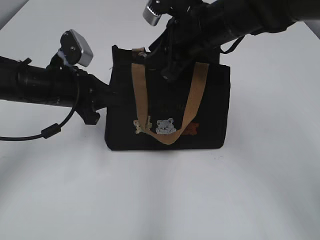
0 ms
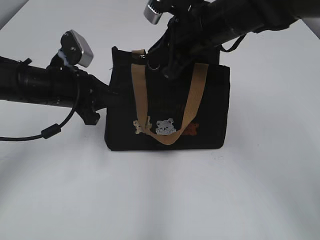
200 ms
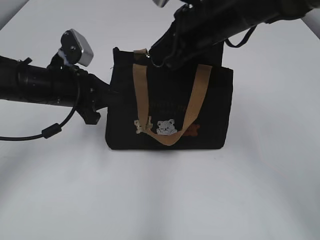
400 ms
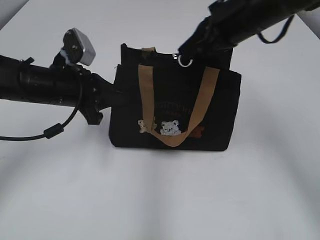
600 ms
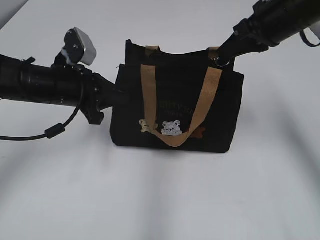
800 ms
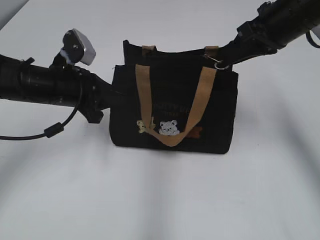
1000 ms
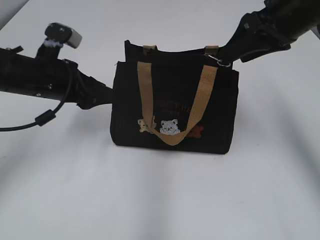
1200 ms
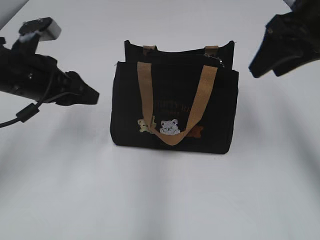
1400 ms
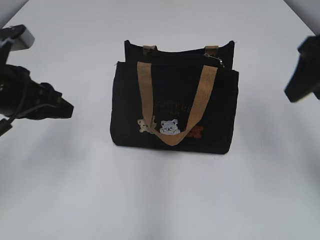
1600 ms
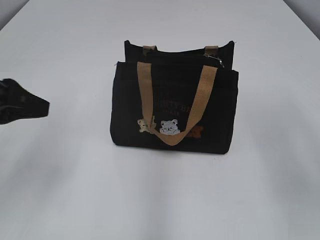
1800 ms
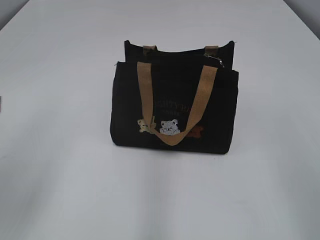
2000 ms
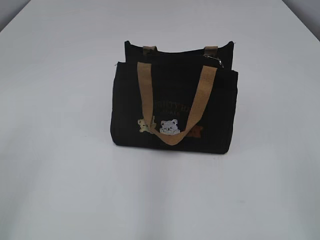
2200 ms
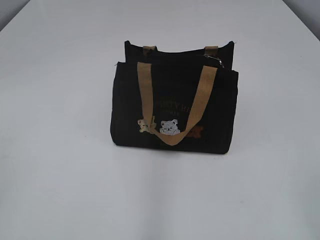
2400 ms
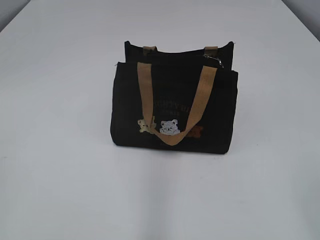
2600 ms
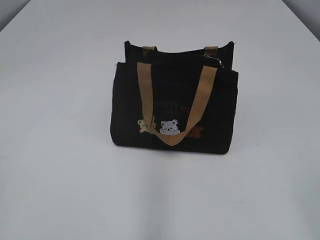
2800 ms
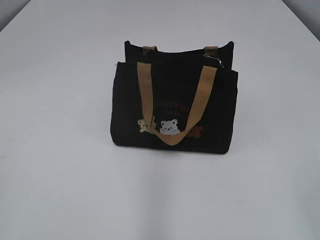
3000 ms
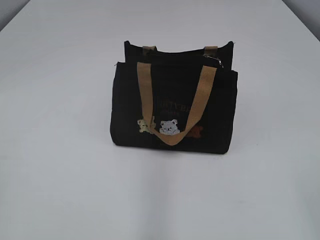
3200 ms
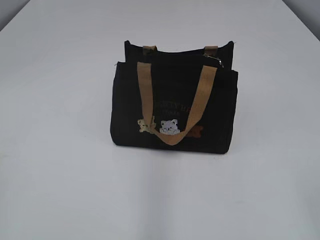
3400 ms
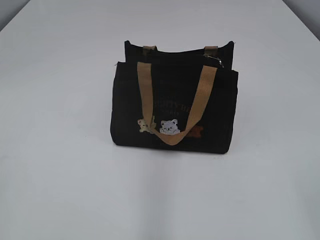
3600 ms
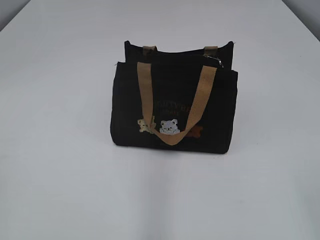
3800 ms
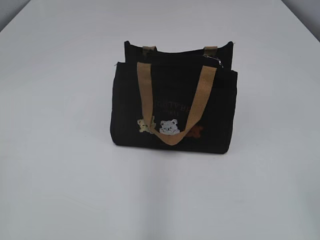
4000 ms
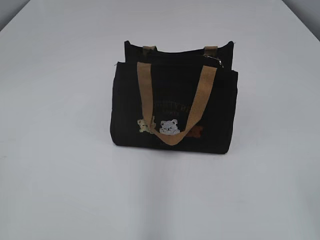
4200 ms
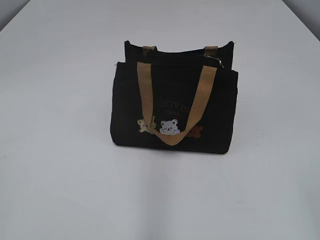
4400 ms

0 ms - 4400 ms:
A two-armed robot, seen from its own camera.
0 ms - 1400 ms: The left gripper shifts by approximately 5 cm, and opens its fingers, while the right gripper heads to the right, upward and backward, covering some 15 cm, and opens up.
1400 ms - 3000 ms: Both grippers travel together backward, approximately 30 cm.

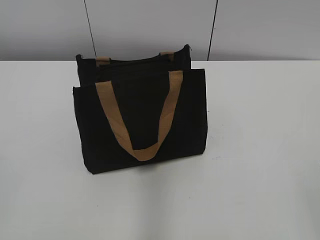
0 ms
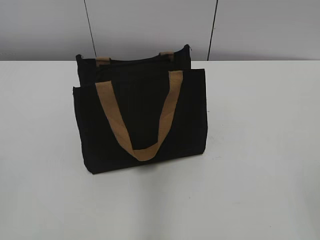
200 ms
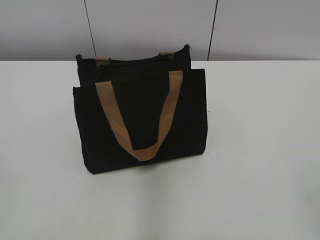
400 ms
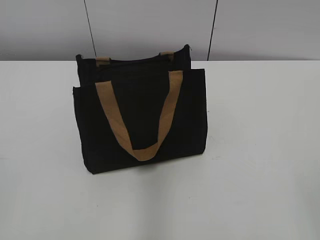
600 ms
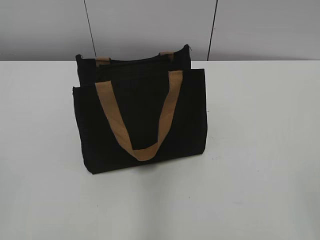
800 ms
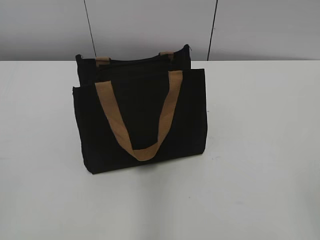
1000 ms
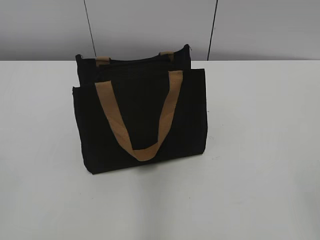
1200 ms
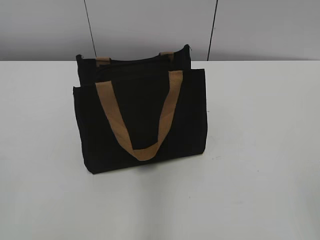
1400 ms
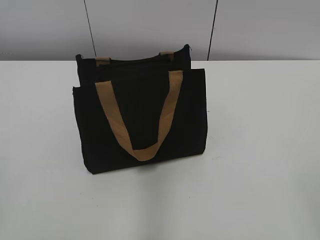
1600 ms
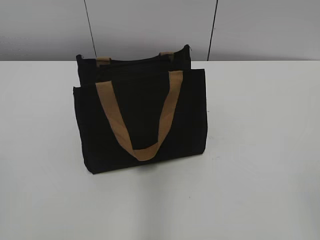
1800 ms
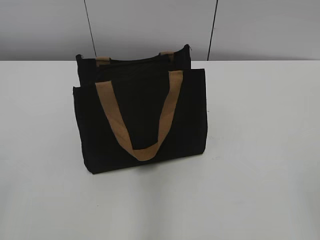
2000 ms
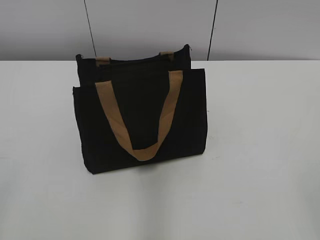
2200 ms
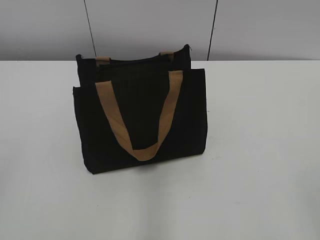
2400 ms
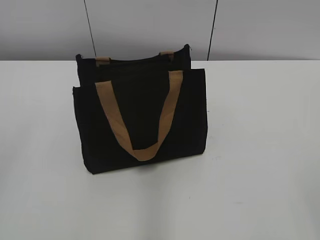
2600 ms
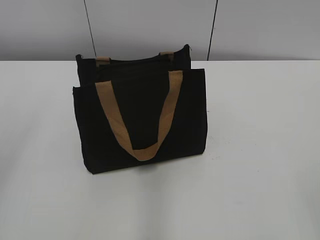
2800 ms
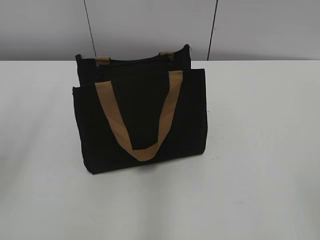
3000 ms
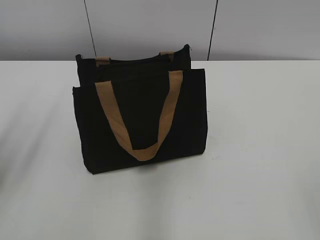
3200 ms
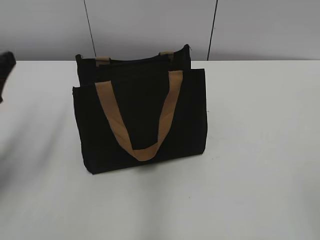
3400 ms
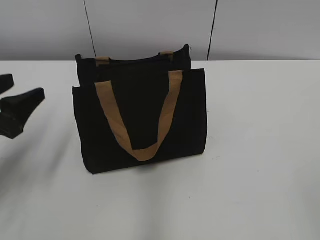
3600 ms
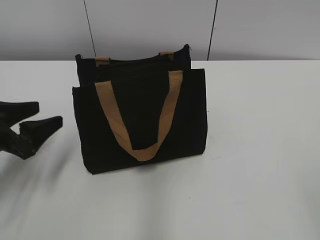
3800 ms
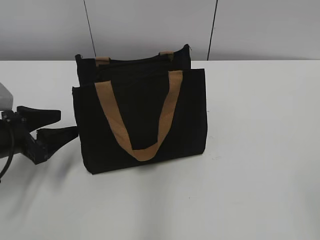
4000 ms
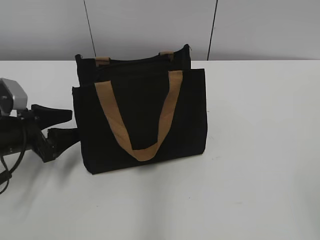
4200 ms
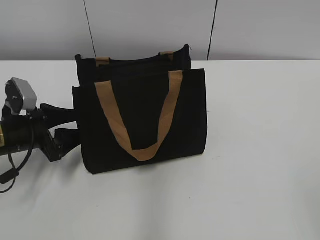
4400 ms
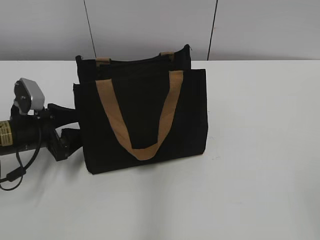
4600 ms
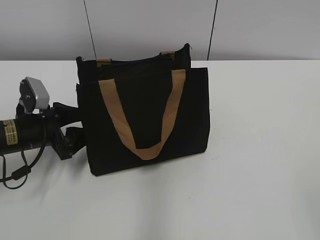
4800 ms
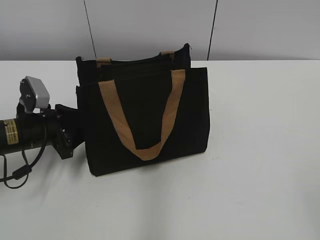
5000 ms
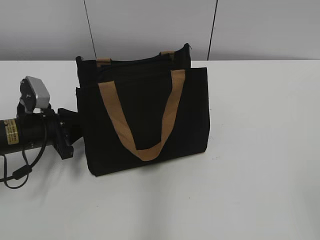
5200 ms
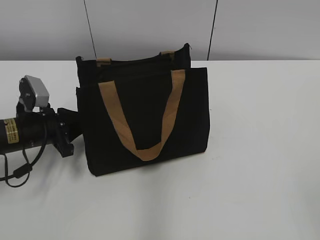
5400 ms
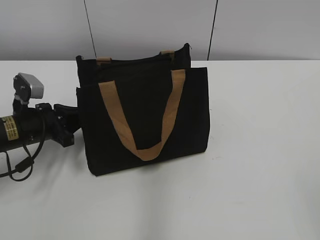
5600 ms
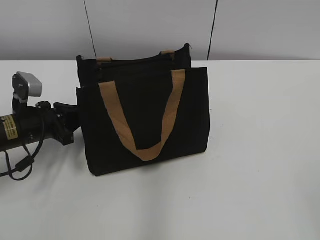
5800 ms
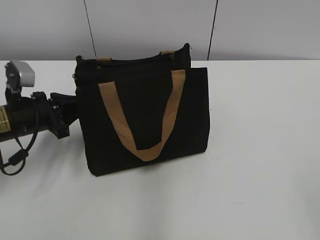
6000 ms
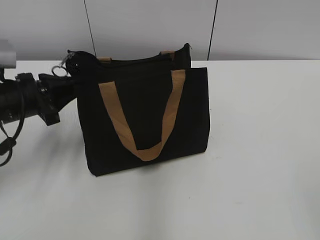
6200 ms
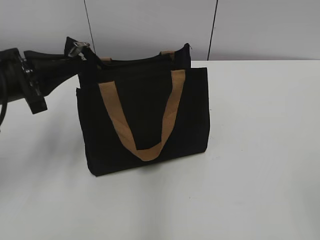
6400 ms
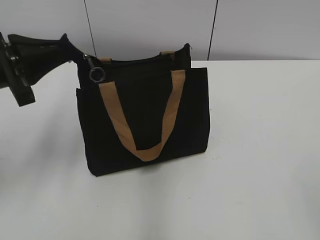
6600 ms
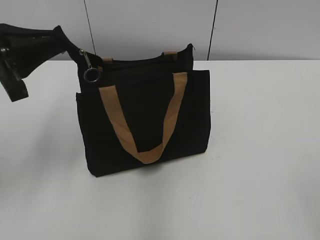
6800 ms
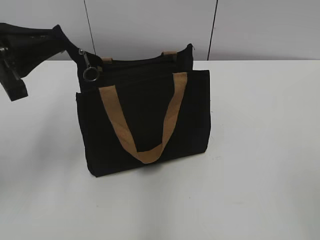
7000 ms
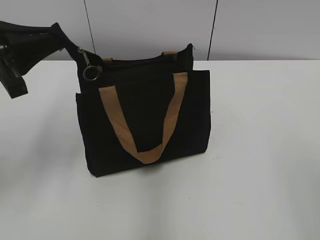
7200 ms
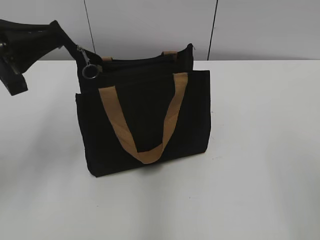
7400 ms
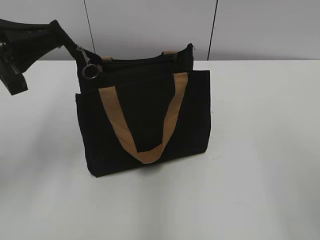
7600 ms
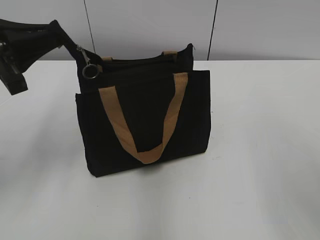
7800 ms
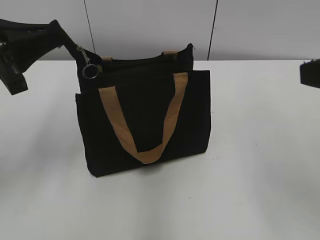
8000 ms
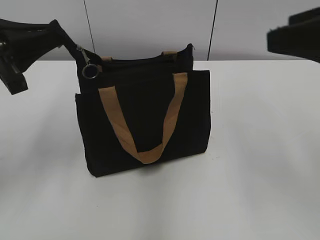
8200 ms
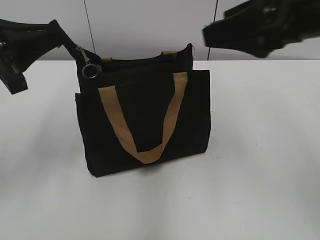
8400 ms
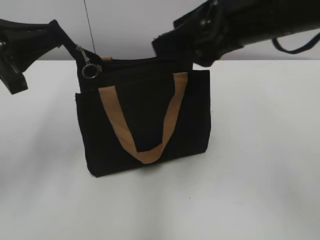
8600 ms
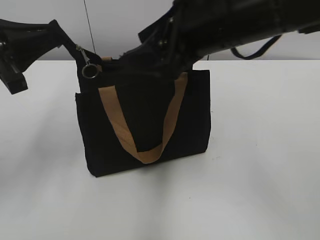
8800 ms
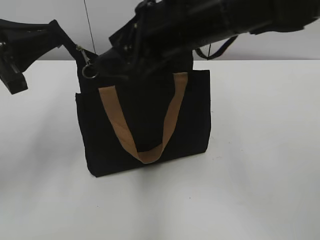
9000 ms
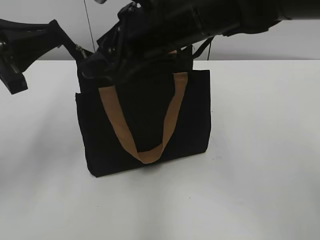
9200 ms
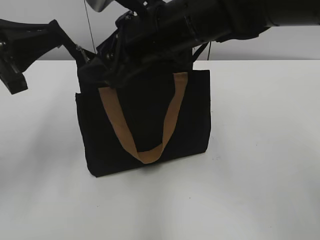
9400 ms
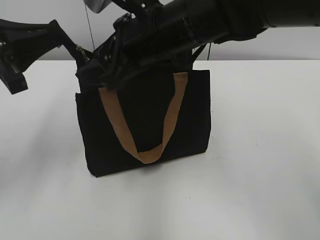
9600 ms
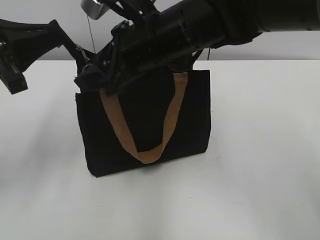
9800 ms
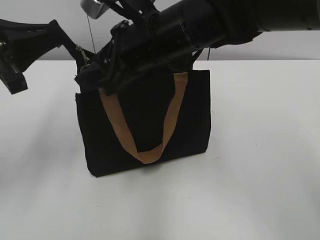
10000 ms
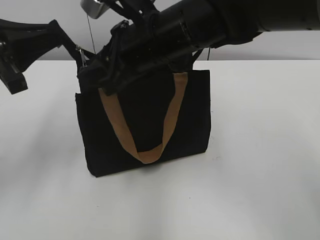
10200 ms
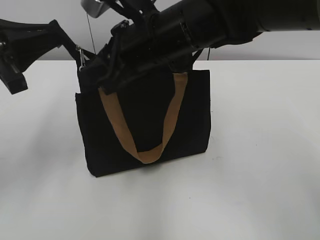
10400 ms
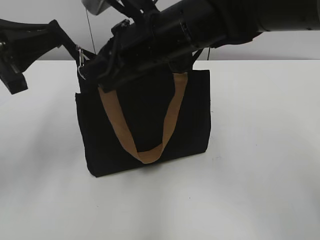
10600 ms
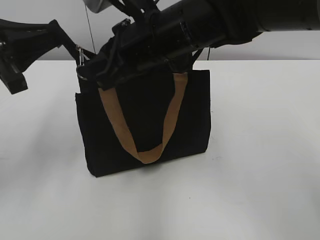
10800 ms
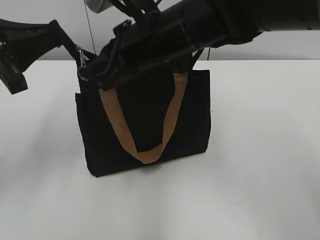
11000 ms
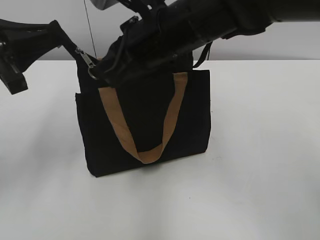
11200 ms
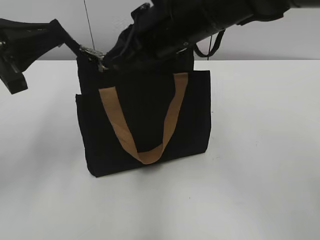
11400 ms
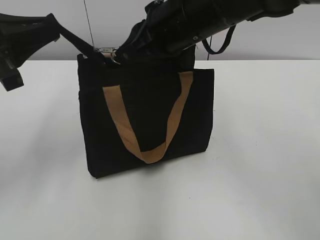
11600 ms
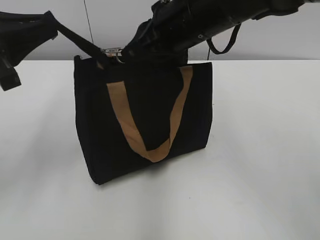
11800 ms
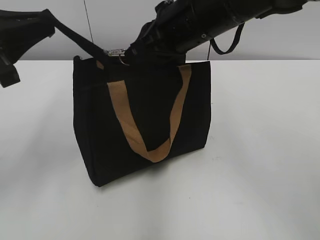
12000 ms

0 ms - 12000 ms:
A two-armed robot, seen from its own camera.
3000 ms - 4400 ms: The left gripper goes roughly 25 cm downward and forward.
4400 ms - 6000 ms: The left gripper closes.
6000 ms - 7600 ms: The left gripper moves upward, approximately 15 cm. Meanwhile the right gripper is displaced forward and upward by approximately 10 cm.
7600 ms - 9000 ms: The right gripper heads forward and to the left, covering some 30 cm.
9000 ms - 10400 ms: The right gripper ends up approximately 5 cm from where it was, and closes its fingers.
10400 ms - 12000 ms: The right gripper moves to the right, approximately 5 cm, and closes its fingers.

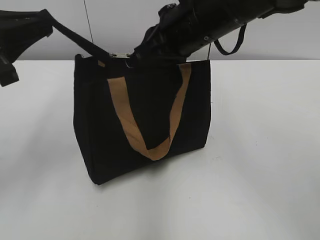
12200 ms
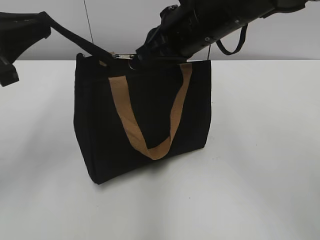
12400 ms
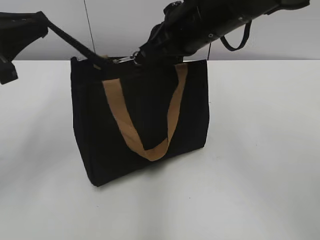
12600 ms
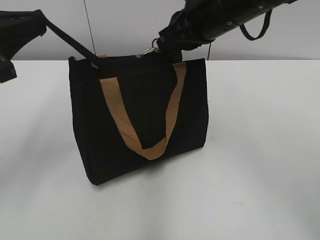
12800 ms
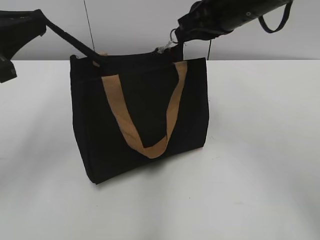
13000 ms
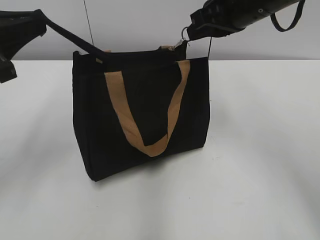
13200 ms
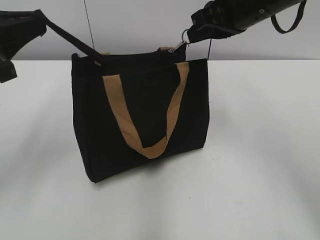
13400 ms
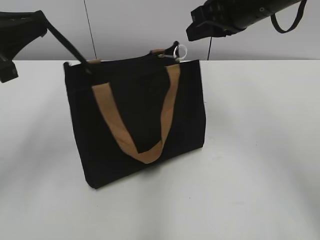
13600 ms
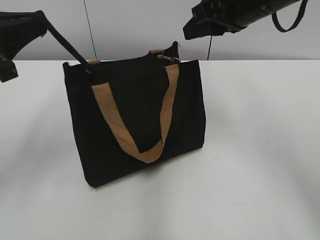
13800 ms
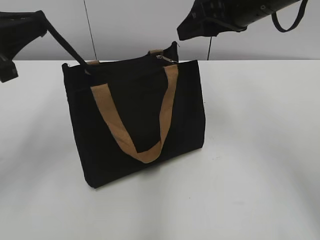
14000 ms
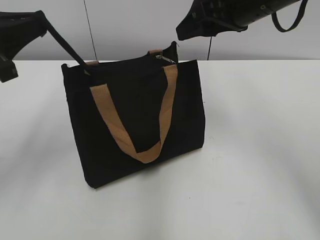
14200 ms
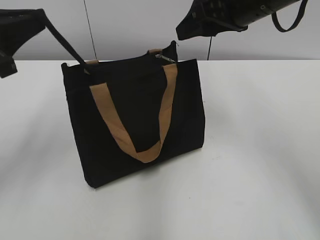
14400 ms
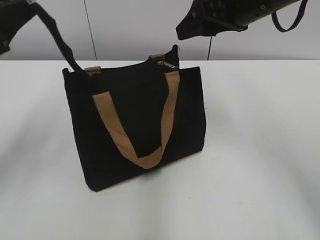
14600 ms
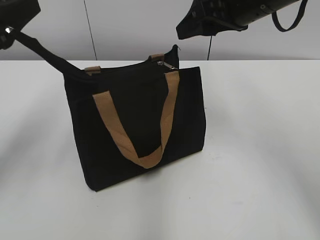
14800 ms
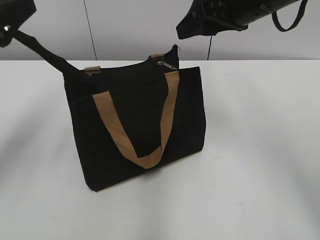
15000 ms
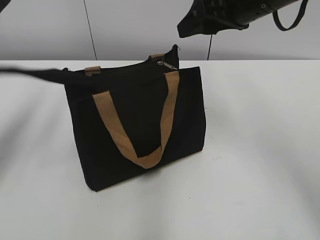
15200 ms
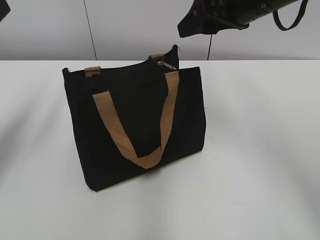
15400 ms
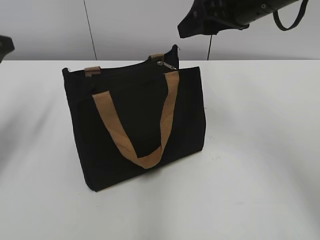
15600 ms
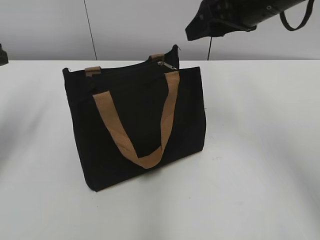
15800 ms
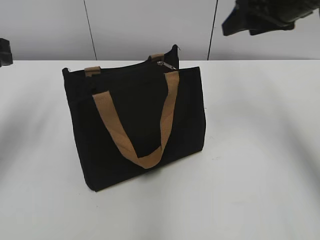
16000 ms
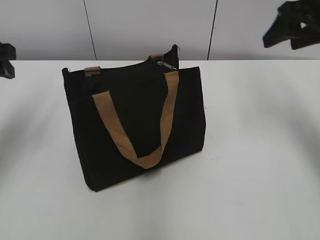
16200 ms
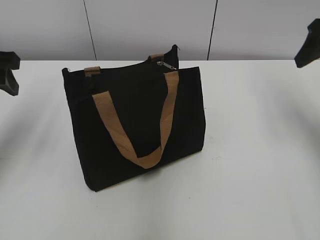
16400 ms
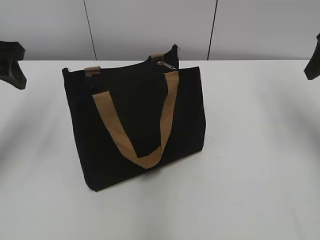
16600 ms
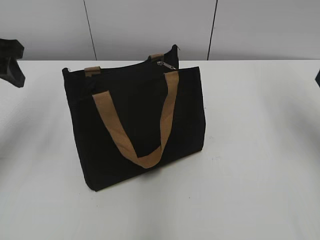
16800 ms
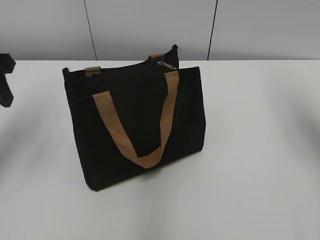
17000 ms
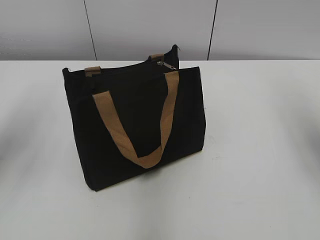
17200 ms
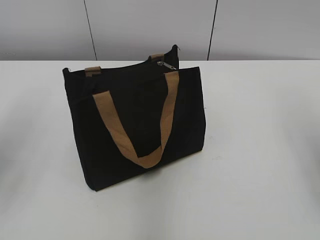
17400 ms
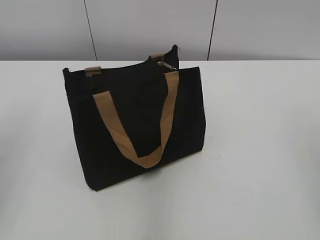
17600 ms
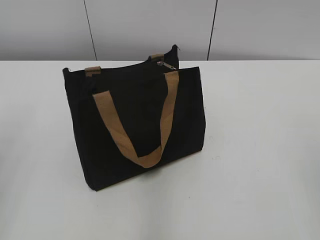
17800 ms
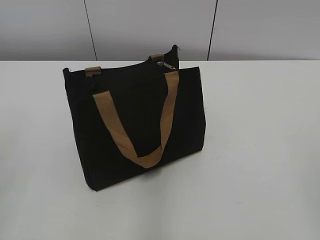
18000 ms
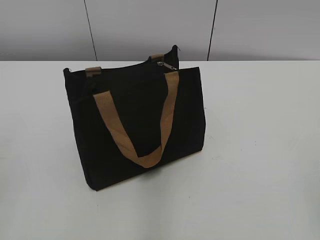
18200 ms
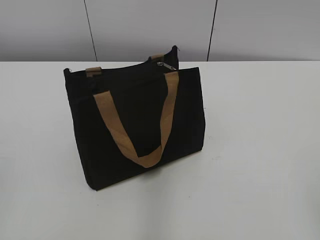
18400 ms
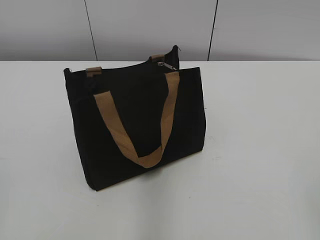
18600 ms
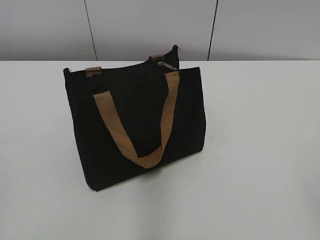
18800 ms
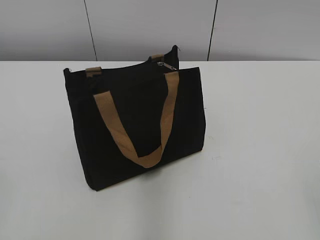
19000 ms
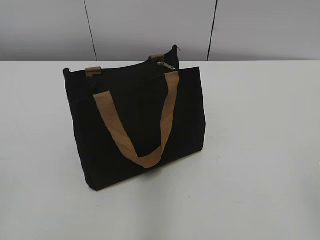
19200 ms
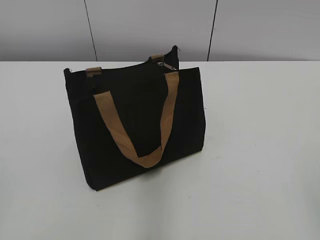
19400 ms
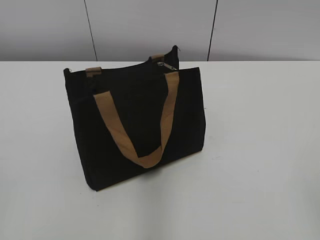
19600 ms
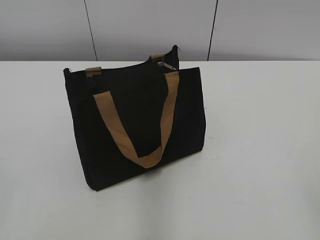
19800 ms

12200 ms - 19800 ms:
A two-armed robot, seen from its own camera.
Step, 13800 ms - 15400 ms: Grab the zipper with your left hand.
12200 ms - 13800 ms: The right gripper heads to the right, covering about 10 cm, and opens up.
13800 ms - 15200 ms: The right gripper opens up. The left gripper opens.
15200 ms - 16800 ms: The right gripper moves to the right, some 15 cm.
16800 ms - 18200 ms: The two grippers go approximately 30 cm backward.
